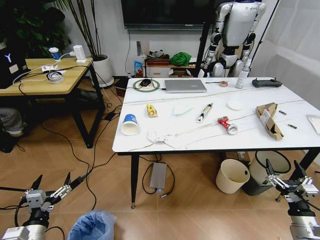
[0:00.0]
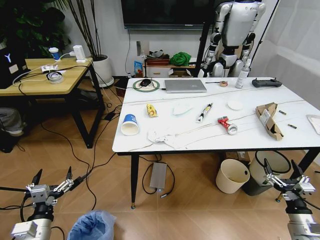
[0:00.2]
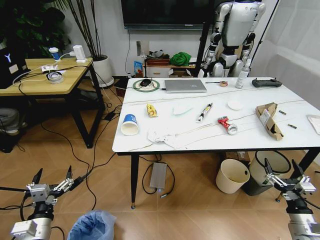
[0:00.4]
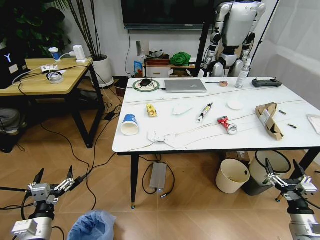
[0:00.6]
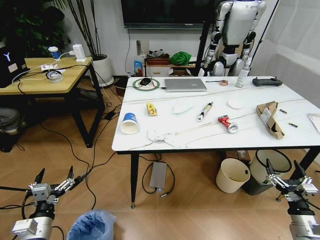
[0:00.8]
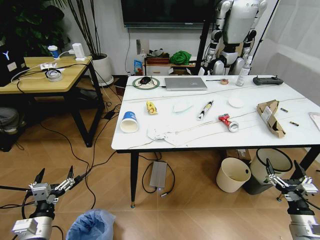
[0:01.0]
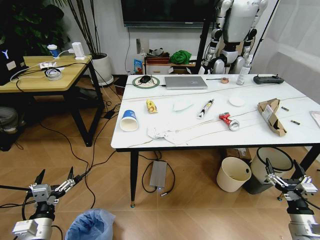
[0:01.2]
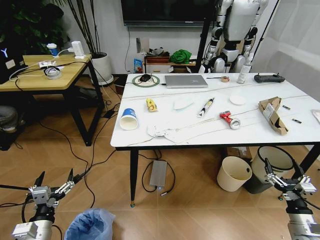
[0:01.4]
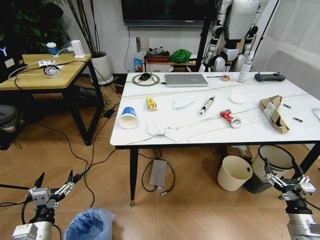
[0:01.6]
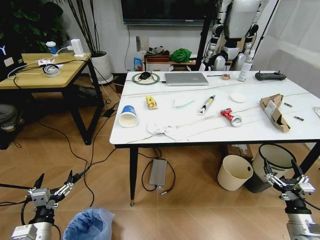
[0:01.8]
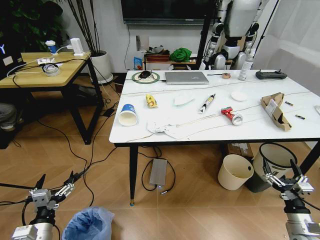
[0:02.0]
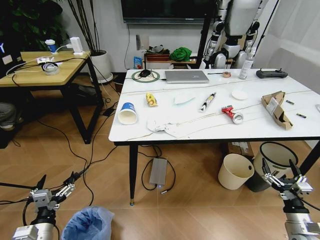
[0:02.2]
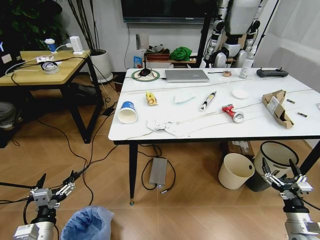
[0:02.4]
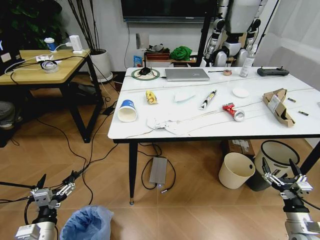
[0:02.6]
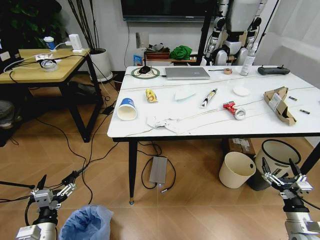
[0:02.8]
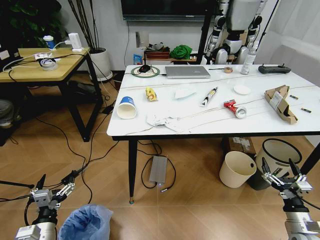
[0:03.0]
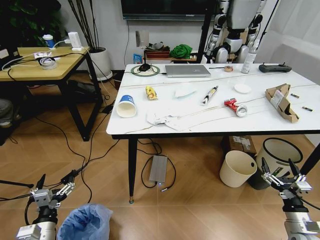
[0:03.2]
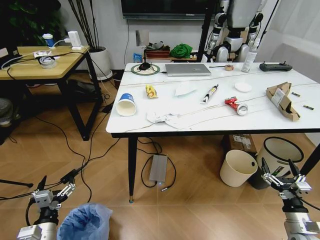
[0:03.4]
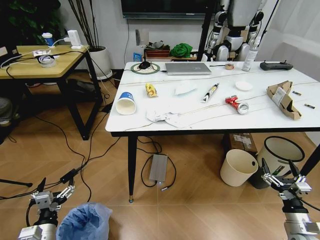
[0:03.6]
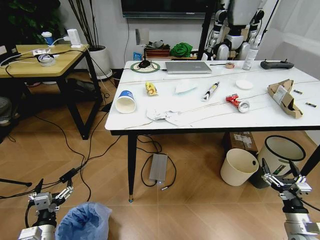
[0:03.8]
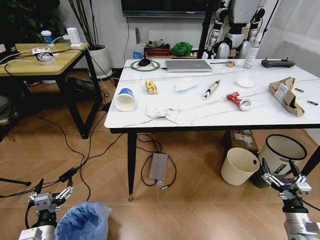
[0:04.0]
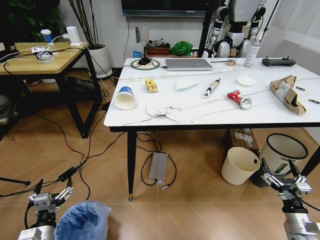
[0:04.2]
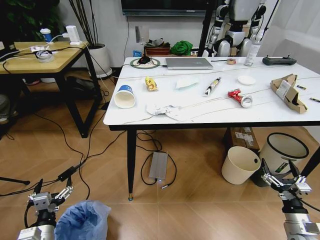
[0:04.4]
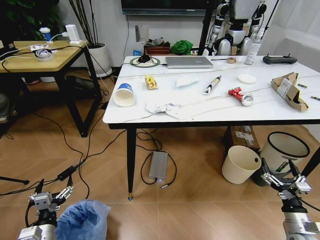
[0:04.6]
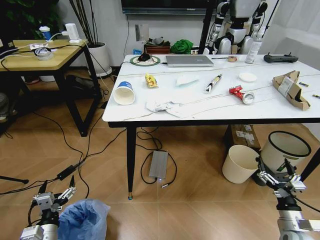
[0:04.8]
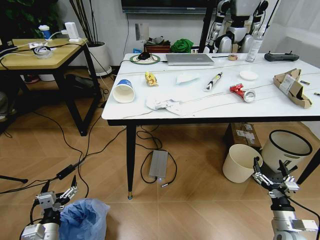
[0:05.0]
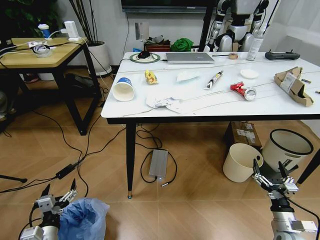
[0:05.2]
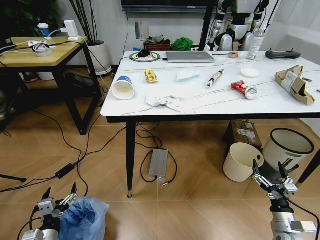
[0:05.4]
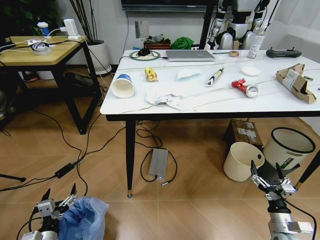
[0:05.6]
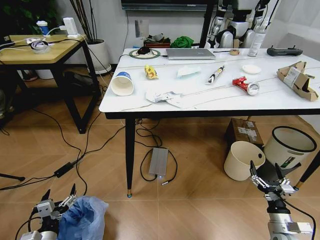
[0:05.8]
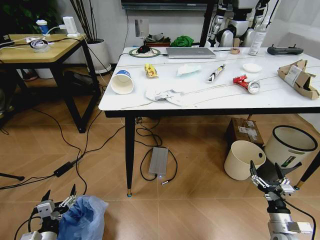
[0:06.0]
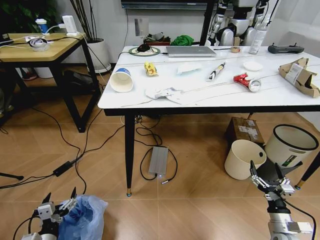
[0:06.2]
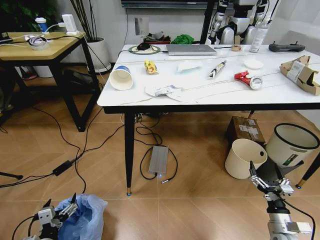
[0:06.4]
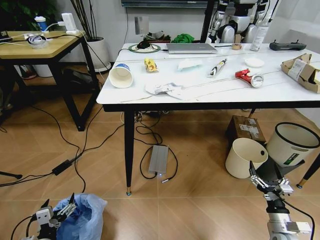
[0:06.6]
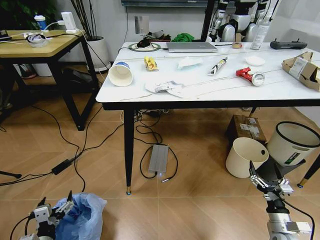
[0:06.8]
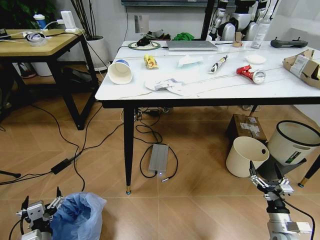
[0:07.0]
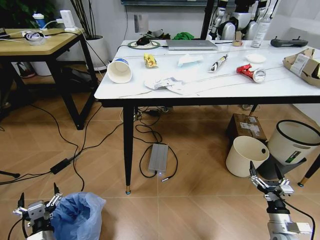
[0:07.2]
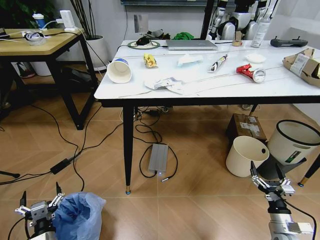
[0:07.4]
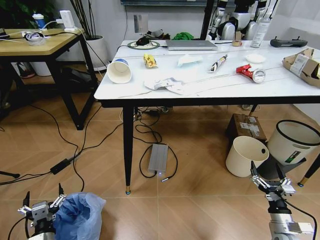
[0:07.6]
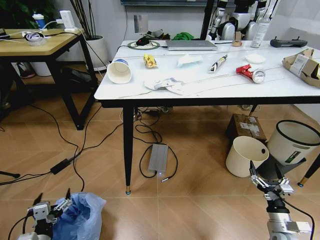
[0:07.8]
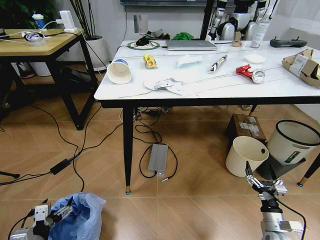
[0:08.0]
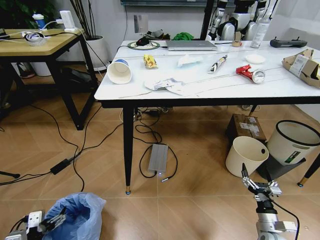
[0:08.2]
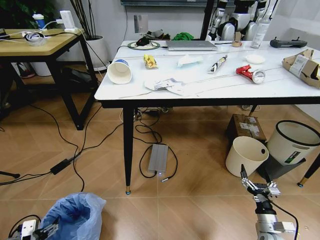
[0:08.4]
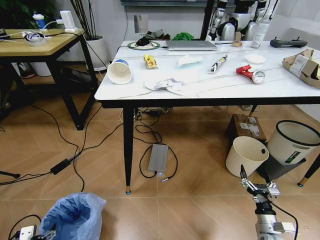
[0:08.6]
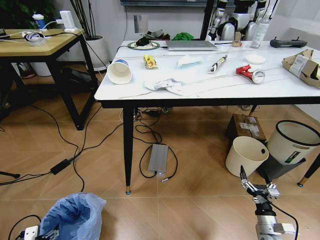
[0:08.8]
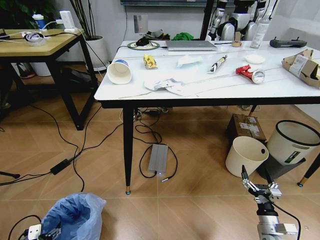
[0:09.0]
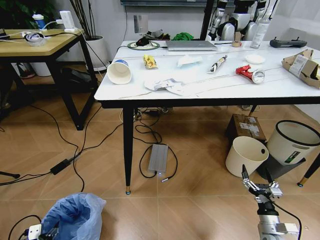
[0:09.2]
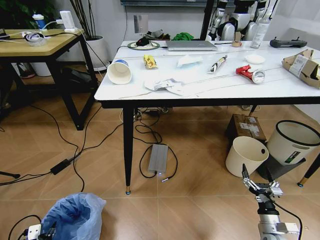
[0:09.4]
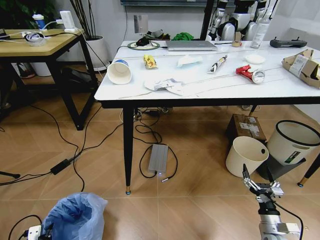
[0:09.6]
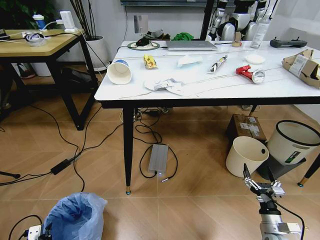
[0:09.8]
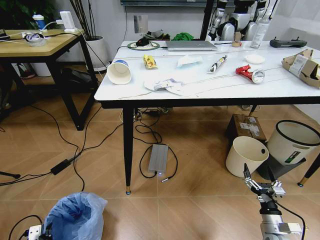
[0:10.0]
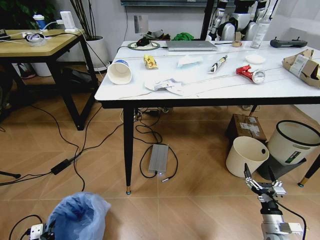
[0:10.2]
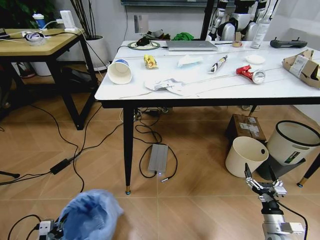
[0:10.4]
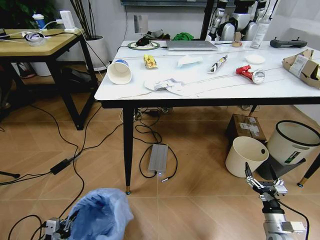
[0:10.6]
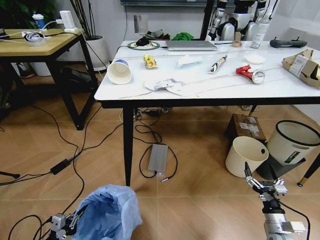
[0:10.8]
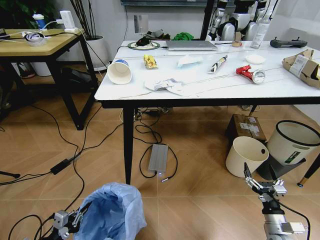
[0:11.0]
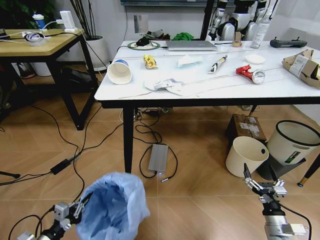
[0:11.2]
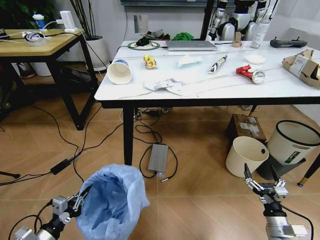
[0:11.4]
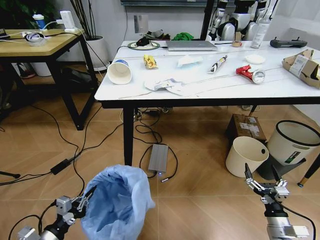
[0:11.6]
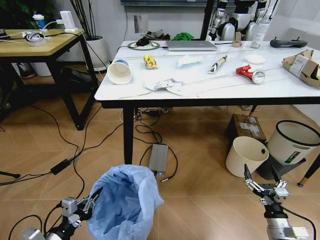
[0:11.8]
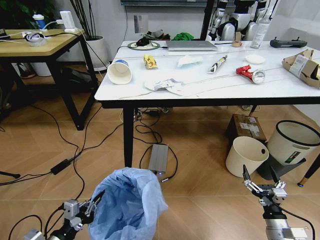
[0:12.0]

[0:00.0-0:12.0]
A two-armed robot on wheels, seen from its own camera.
Task of the whole recording: Pick up the trash bin and place the trash from the table into it.
0:07.6 to 0:09.0: The left gripper travels to the left by approximately 10 cm.
0:09.0 to 0:10.4: The left gripper closes up.
0:10.4 to 0:12.0: The left gripper goes roughly 20 cm upward and to the right.

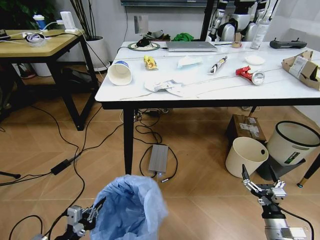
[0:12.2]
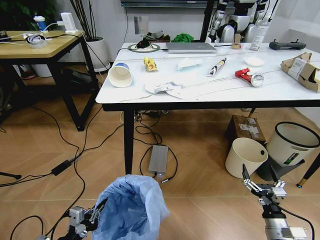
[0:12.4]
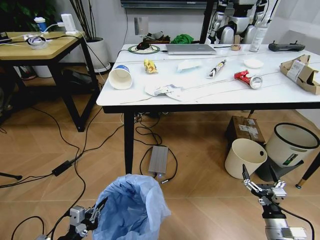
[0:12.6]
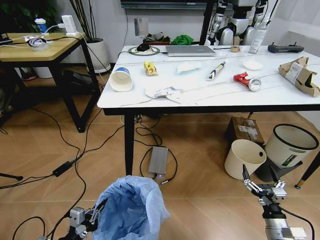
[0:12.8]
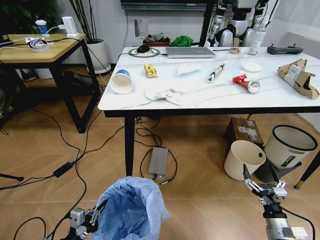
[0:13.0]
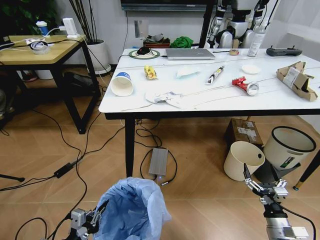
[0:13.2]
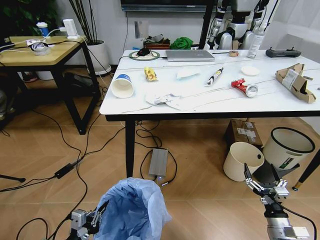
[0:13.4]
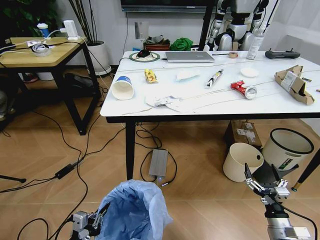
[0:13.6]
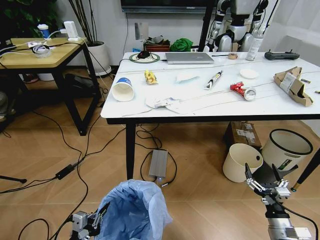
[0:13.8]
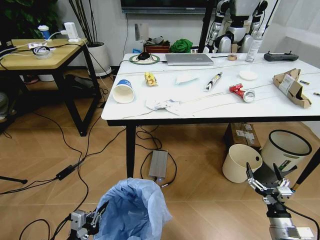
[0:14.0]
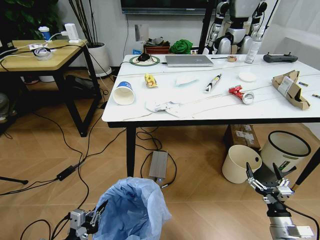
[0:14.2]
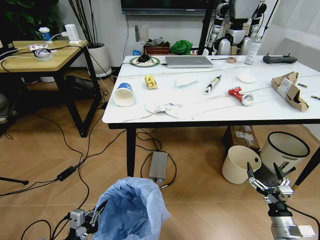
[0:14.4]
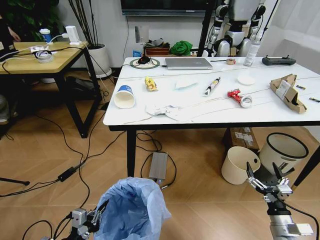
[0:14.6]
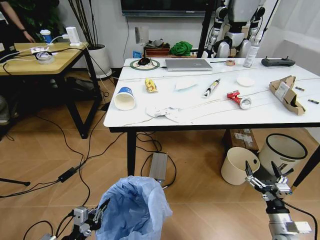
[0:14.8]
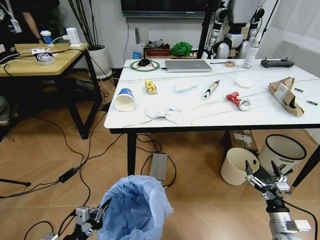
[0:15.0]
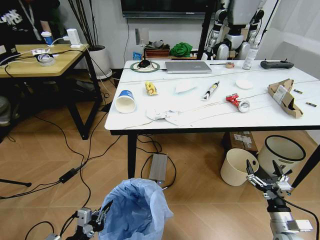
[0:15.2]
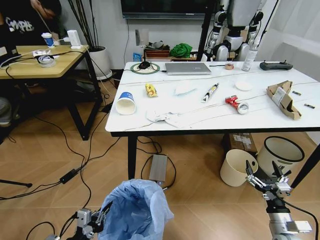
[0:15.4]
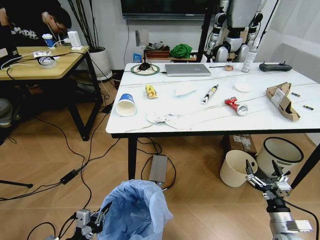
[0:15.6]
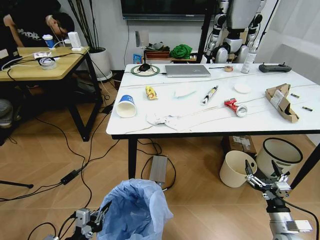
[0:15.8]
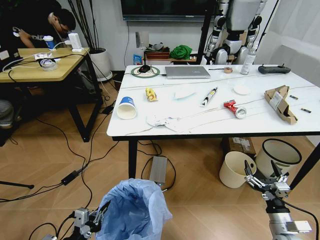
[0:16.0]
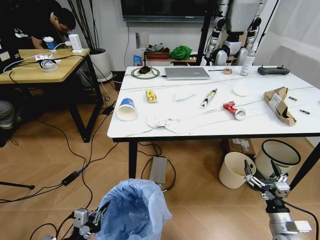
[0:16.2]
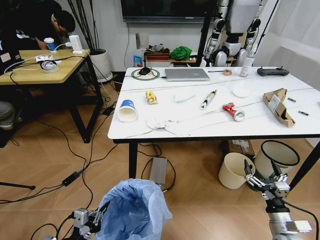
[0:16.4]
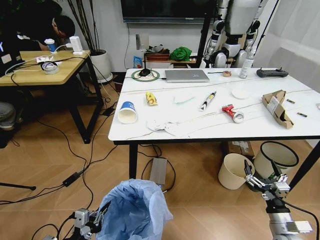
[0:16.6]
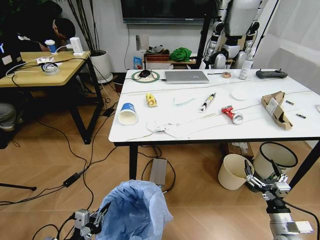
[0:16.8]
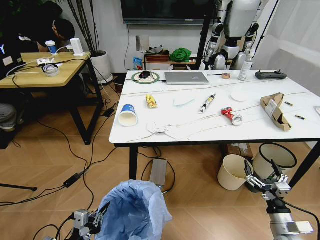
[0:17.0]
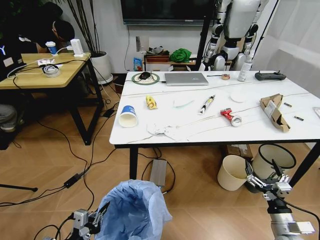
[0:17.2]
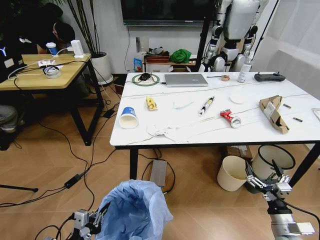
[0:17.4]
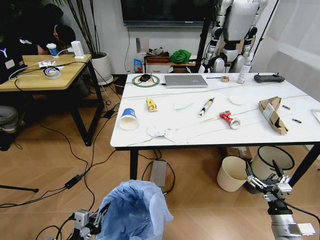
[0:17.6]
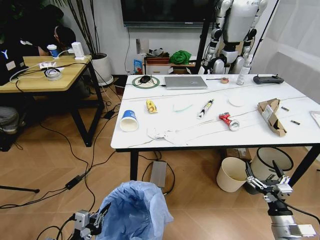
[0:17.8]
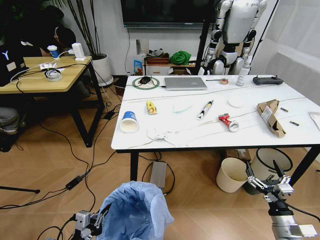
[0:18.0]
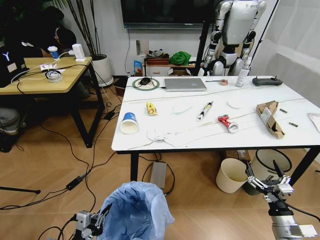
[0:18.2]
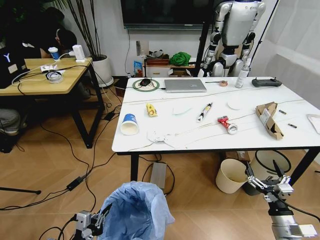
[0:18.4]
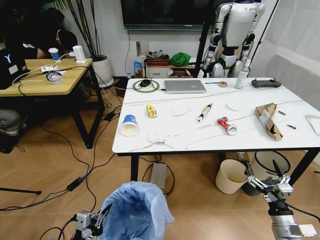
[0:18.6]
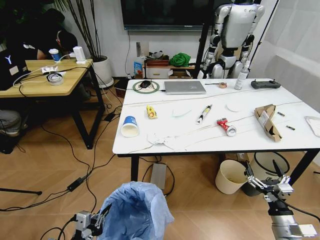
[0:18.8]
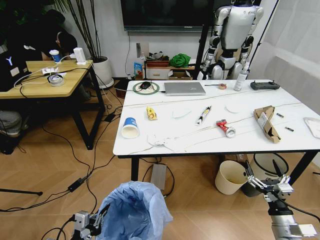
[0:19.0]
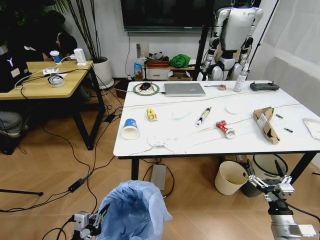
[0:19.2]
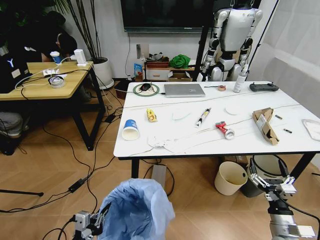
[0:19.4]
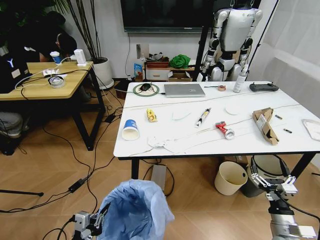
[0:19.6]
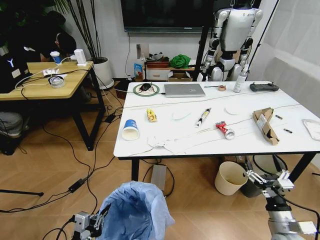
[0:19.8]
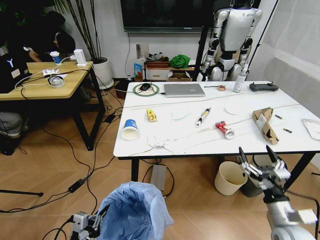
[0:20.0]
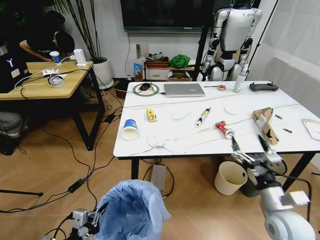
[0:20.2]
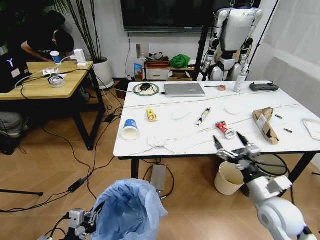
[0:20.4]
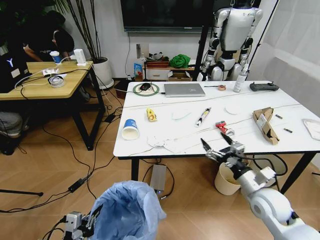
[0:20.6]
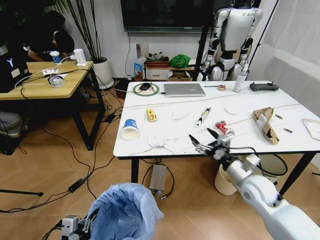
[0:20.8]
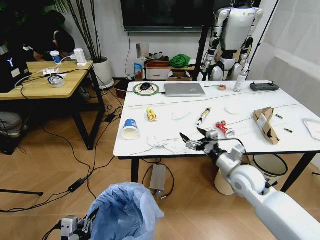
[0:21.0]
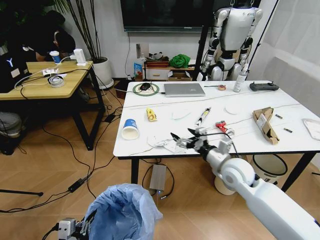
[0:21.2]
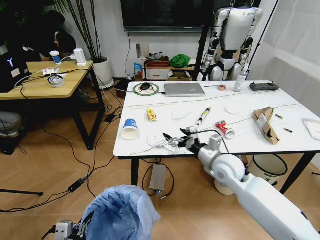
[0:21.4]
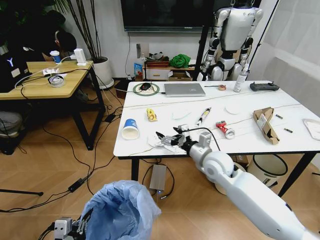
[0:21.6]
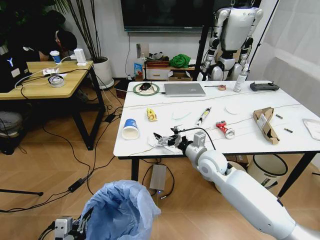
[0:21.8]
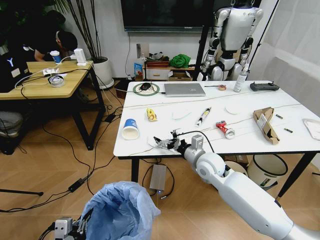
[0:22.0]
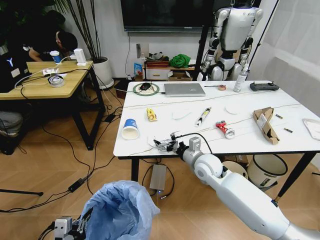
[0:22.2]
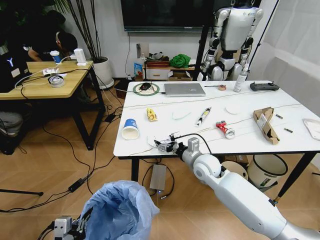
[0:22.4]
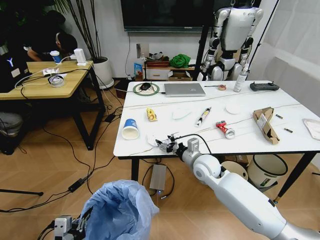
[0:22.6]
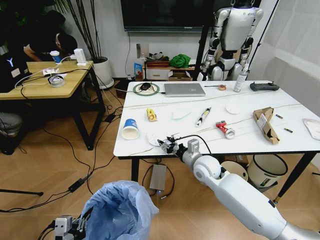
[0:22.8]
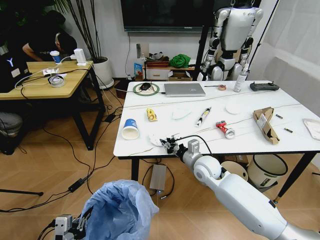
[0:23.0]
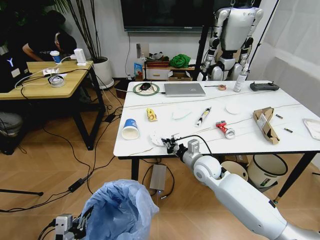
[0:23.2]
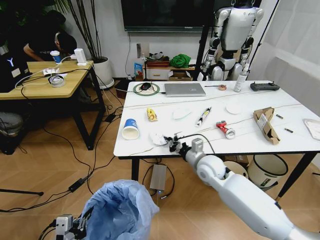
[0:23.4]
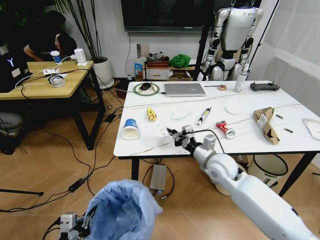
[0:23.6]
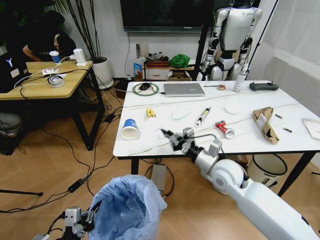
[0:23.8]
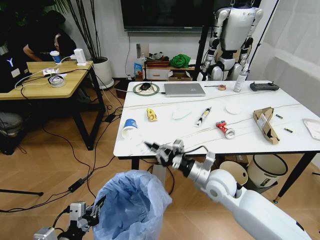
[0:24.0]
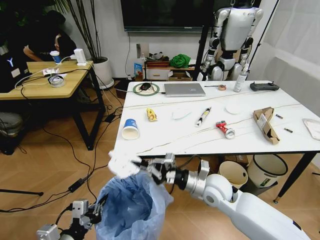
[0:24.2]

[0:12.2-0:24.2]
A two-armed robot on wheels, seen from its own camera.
Task of the whole recording: Pick up the trash bin and place the trash from the table into it.
0:19.8 to 0:21.2: The right gripper shifts about 25 cm forward, to the left and upward.
0:21.2 to 0:22.6: The right gripper is displaced to the left by about 10 cm.
0:22.6 to 0:24.2: The left gripper changes place by about 5 cm; the right gripper shifts approximately 10 cm backward, and closes up.
